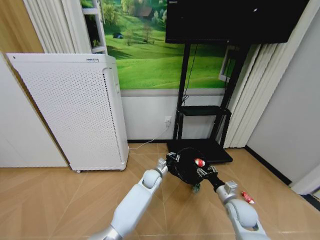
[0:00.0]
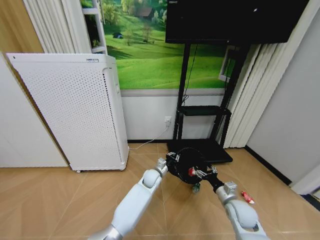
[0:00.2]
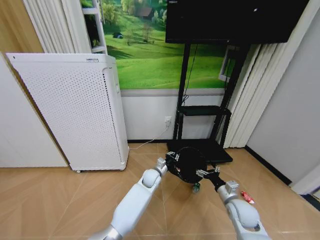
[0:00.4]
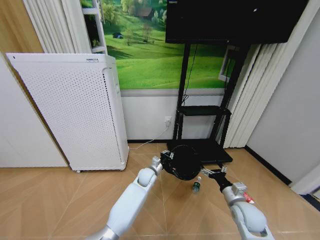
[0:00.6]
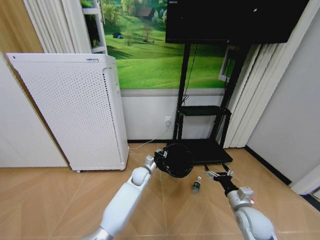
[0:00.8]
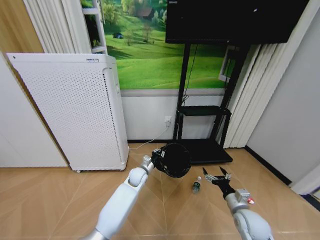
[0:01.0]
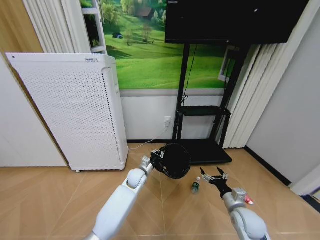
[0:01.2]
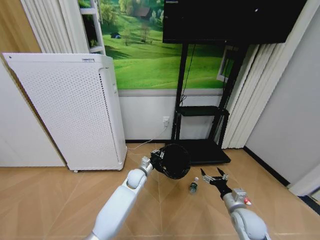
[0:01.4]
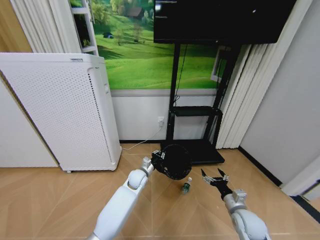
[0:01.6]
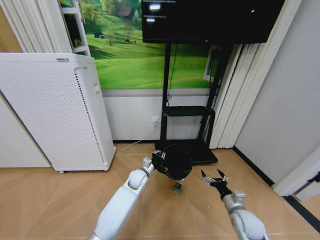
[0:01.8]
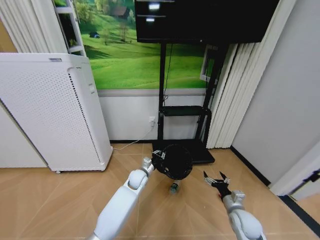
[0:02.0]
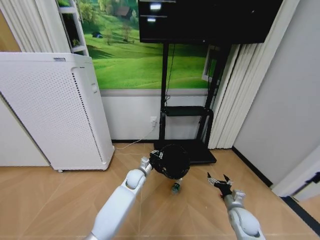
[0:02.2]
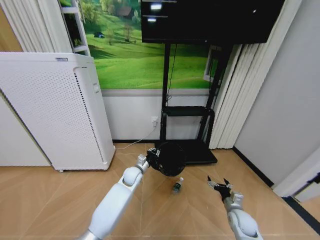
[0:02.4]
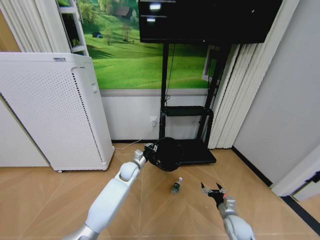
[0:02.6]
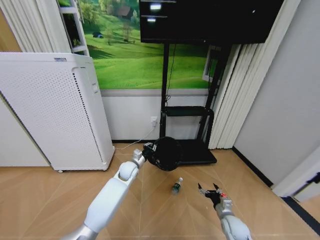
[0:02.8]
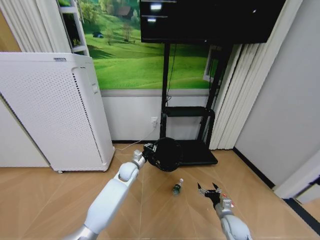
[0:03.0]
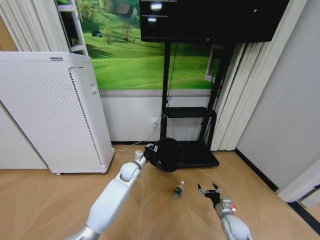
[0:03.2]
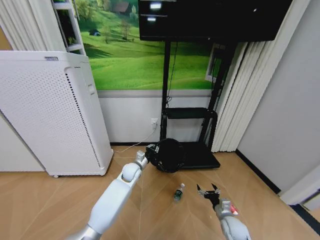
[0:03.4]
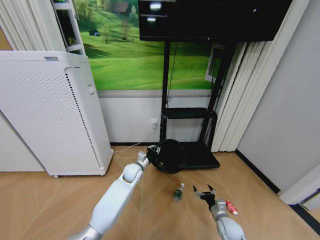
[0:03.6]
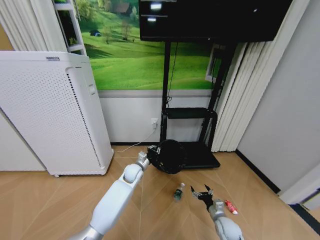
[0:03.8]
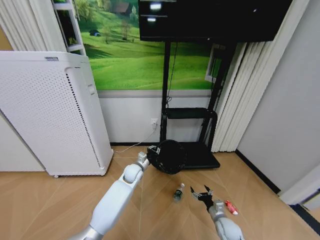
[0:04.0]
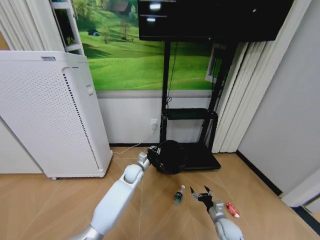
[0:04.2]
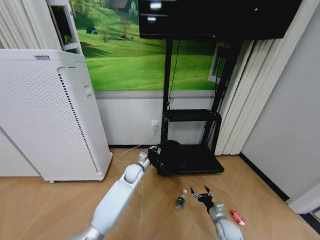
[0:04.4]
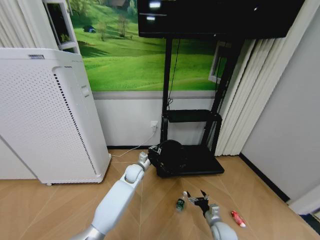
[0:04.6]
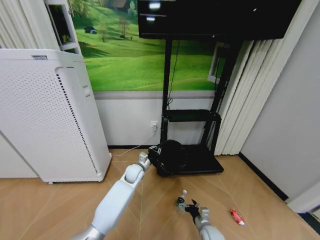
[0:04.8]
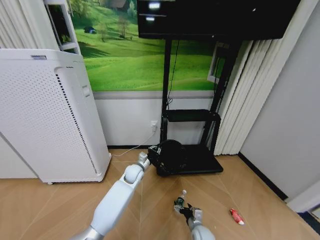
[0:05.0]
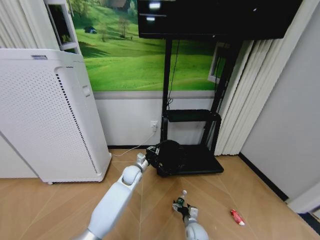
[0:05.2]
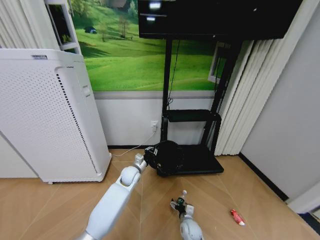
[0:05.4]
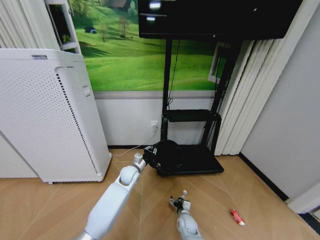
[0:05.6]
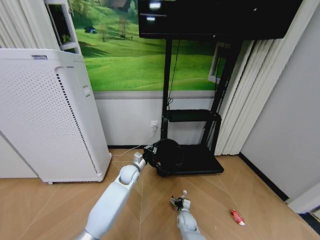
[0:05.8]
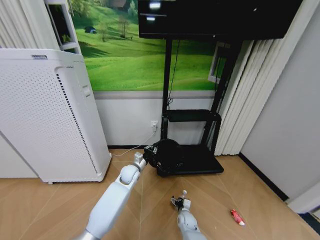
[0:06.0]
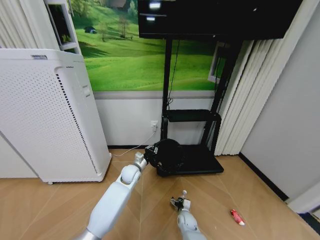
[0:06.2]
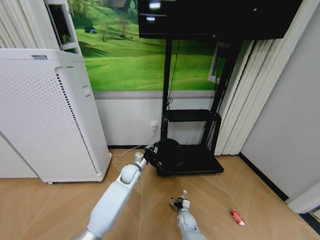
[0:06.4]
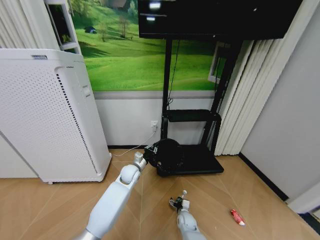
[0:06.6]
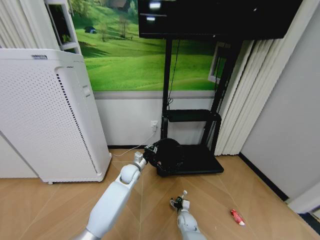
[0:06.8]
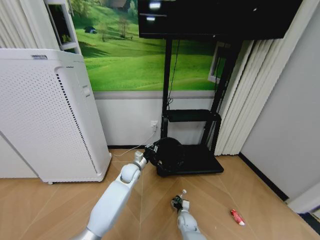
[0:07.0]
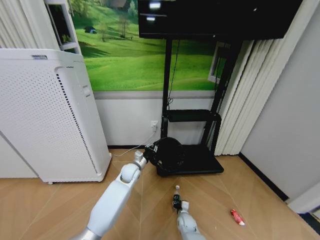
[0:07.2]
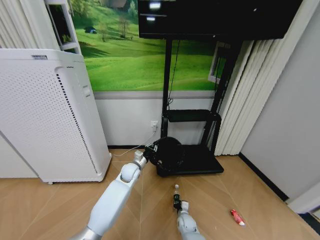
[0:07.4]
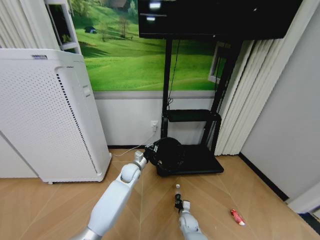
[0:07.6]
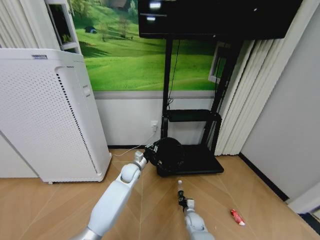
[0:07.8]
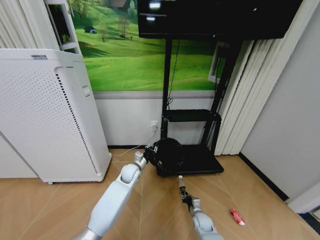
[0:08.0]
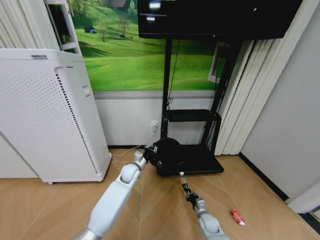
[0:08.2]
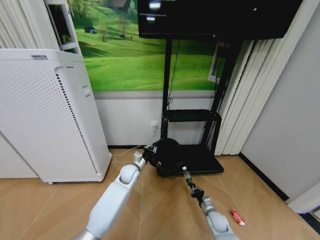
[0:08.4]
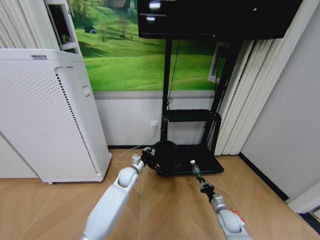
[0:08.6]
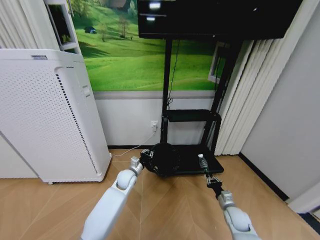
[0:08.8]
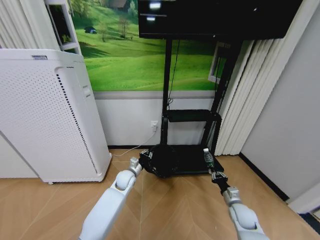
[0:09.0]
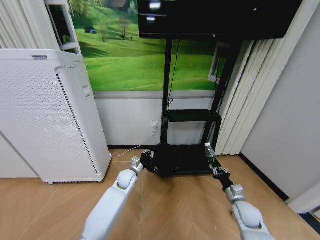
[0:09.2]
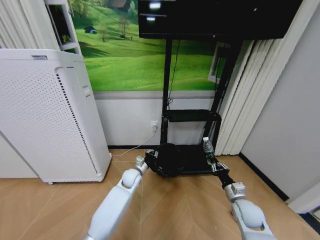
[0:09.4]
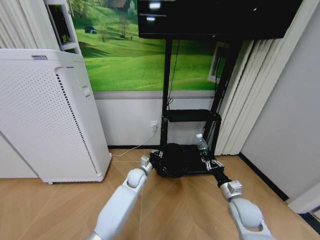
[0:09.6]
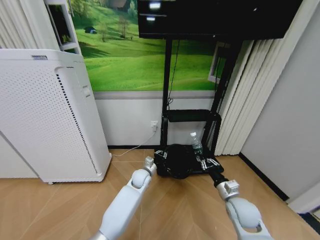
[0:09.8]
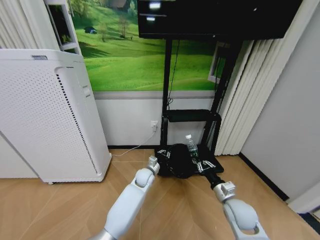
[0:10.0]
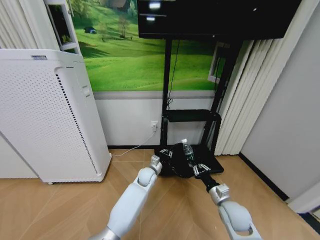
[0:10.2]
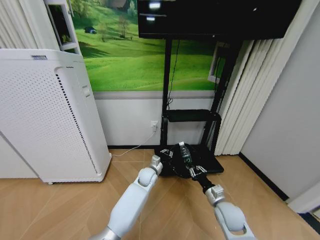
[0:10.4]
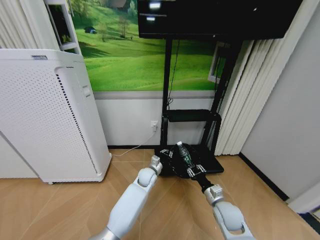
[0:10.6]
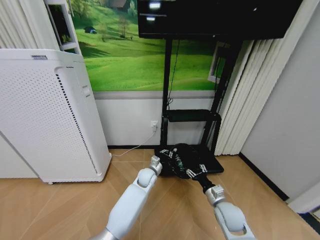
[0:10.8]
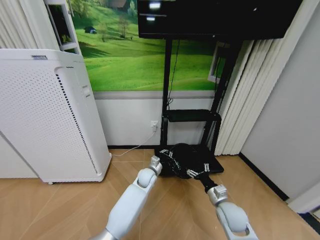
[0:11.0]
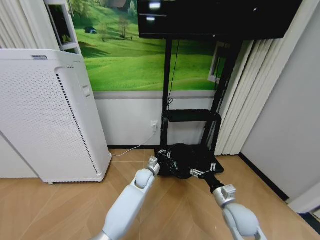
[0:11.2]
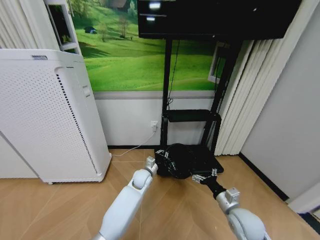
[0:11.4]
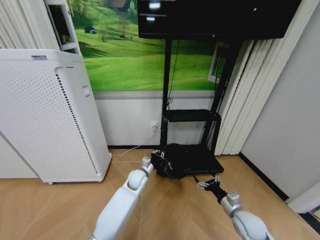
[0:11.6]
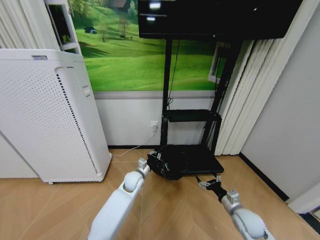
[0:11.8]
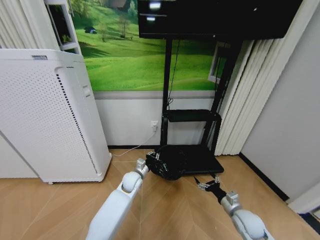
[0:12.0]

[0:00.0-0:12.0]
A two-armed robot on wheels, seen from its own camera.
Task of the whole recording: Pick up the trash bin and place the garbage on the floor into it.
0:00.0 to 0:01.6: The left gripper is displaced to the left by about 5 cm. The right gripper opens up.
0:01.6 to 0:03.0: The left gripper shifts by approximately 5 cm. Meanwhile the right gripper is displaced downward by approximately 10 cm.
0:04.4 to 0:06.0: The right gripper travels to the left and downward by approximately 20 cm.
0:06.0 to 0:07.6: The right gripper closes up.
0:07.6 to 0:09.0: The right gripper travels to the right and upward by approximately 30 cm.
0:09.0 to 0:10.4: The left gripper heads to the right, covering approximately 10 cm. The right gripper moves to the left and upward, some 10 cm.
0:10.4 to 0:12.0: The left gripper heads to the left, covering about 10 cm, while the right gripper travels to the right by approximately 10 cm, and opens up.

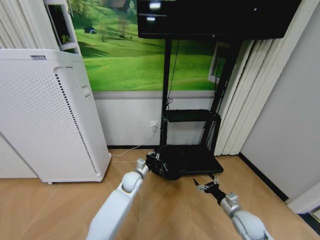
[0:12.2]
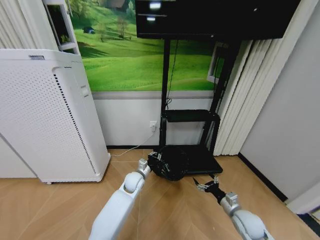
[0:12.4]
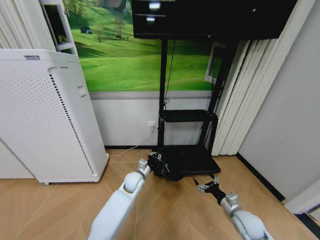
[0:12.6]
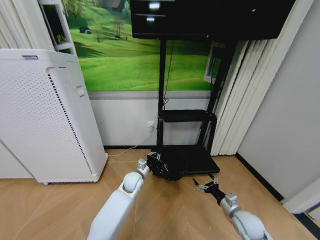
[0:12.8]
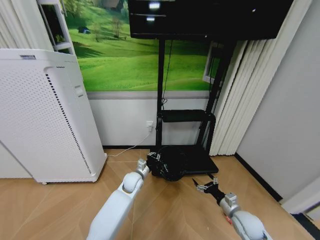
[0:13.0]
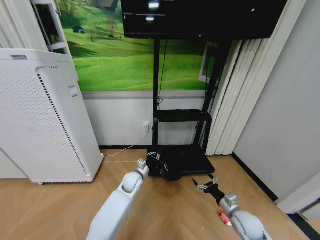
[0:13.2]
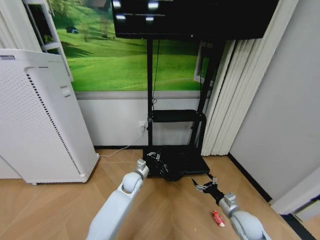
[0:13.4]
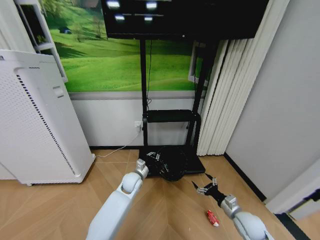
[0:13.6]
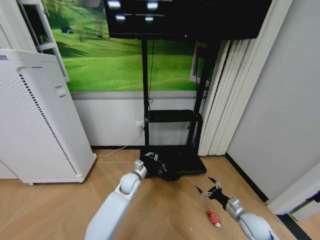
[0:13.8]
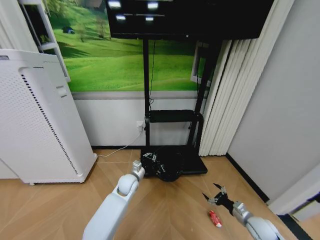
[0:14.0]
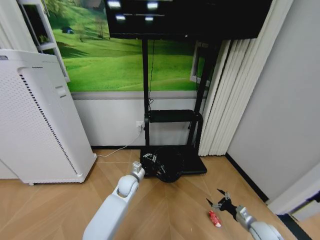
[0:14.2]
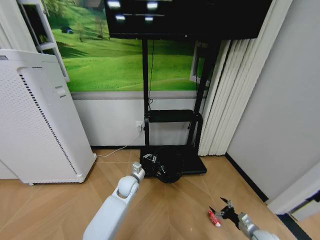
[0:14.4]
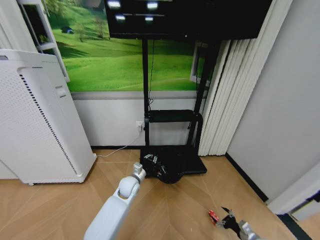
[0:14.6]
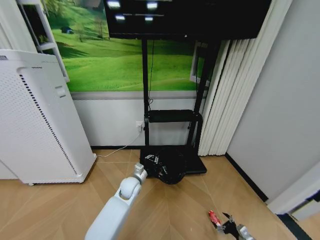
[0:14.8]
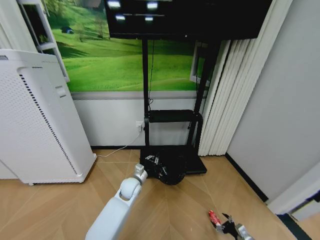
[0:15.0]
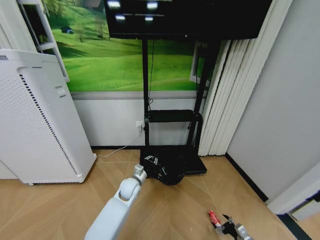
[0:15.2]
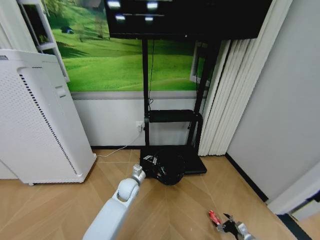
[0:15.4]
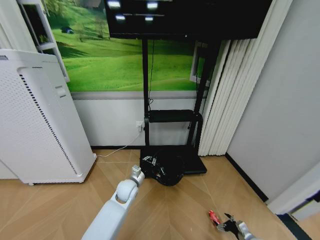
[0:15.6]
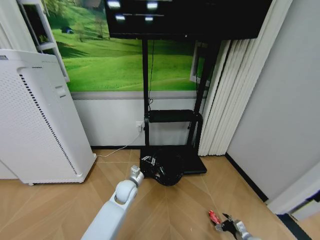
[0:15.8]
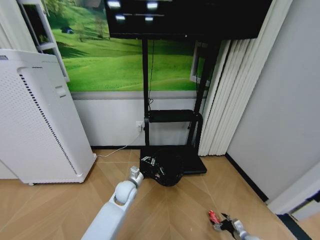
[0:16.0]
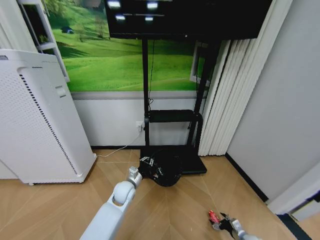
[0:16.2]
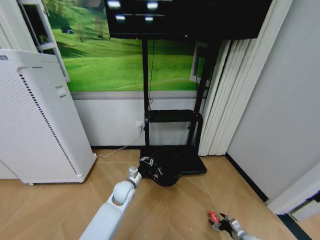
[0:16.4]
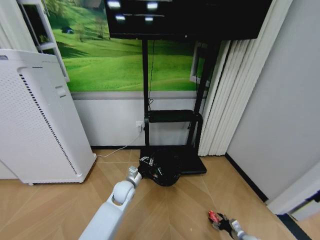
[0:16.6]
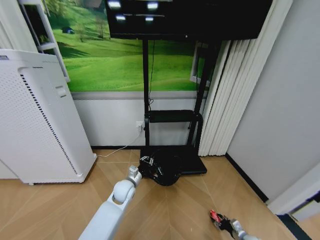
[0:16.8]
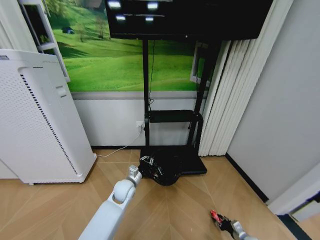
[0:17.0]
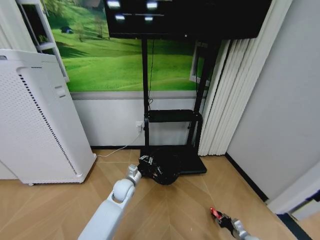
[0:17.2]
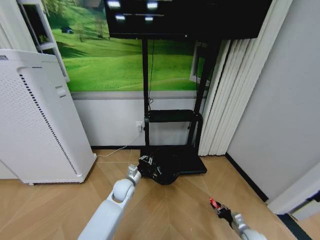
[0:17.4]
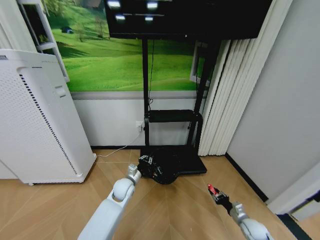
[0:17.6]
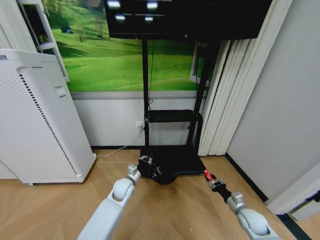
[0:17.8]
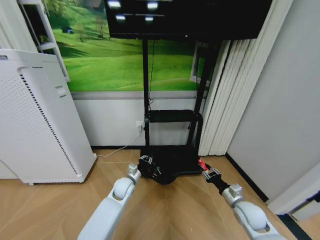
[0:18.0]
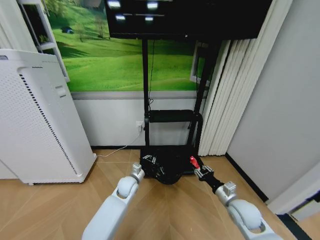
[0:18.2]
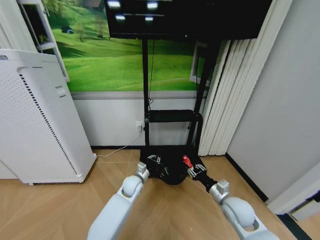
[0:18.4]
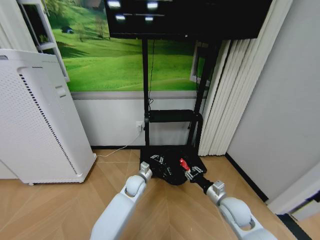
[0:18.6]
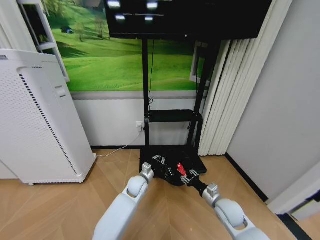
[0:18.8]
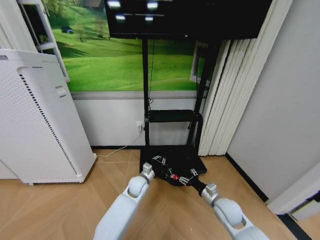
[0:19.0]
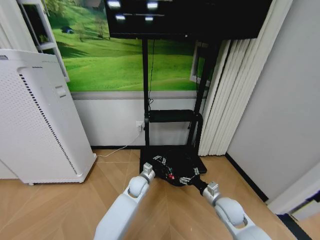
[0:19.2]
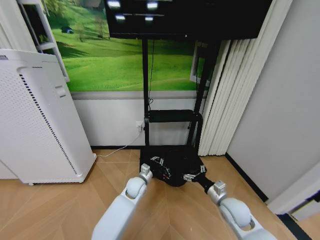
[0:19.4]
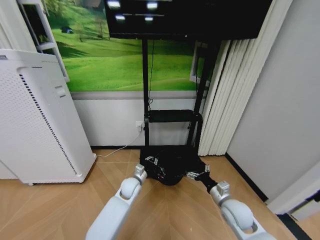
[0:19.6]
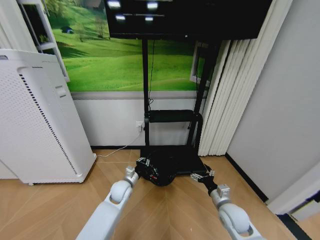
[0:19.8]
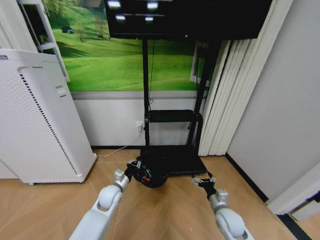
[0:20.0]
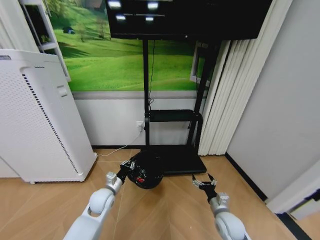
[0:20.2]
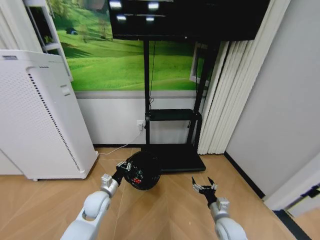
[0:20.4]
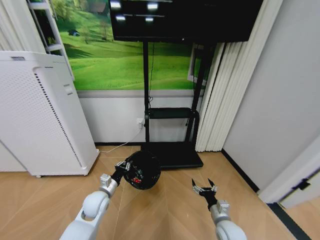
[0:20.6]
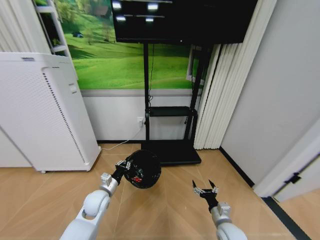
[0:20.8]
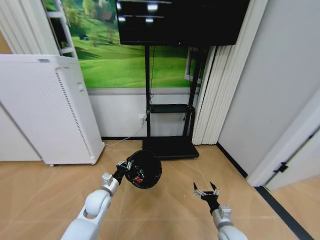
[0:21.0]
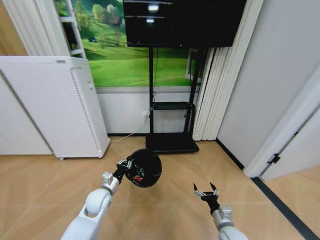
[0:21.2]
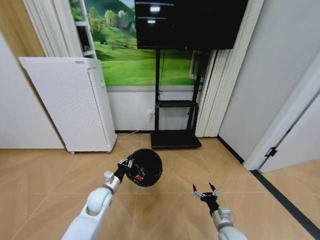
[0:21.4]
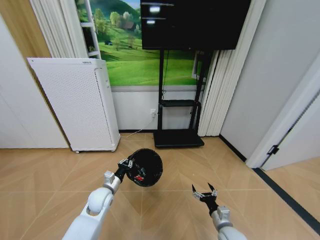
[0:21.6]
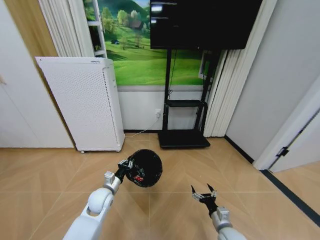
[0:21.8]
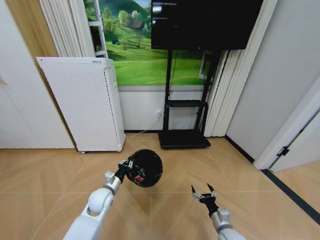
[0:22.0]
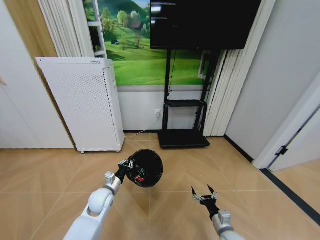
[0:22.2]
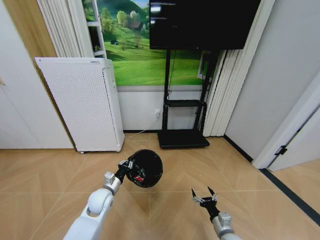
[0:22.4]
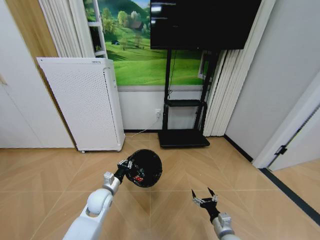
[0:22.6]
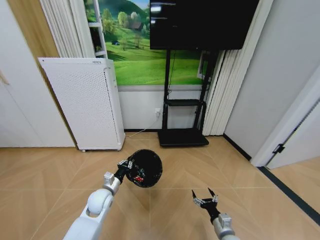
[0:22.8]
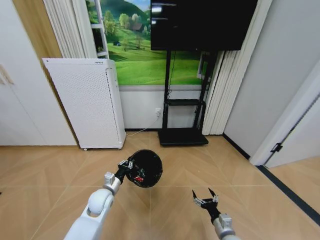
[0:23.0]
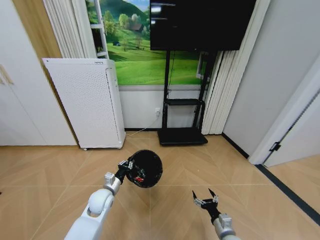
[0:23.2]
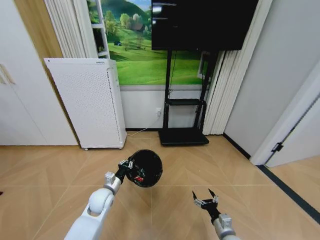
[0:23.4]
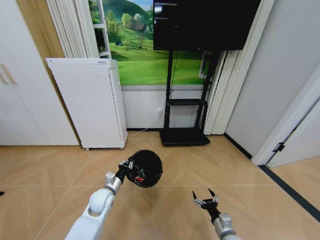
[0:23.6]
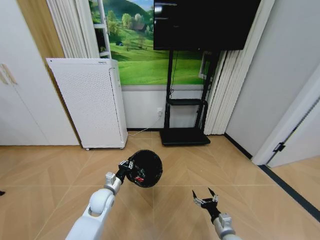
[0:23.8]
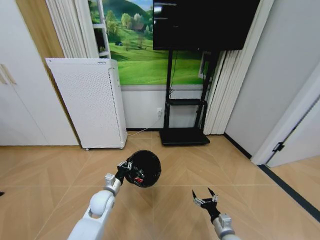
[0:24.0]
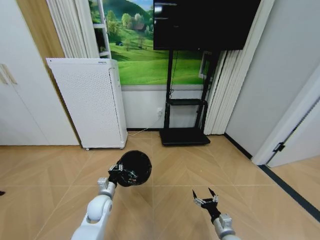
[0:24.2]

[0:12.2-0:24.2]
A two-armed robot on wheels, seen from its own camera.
Task of the whole recording: Pick up the trash bin and place the garbage on the floor into it.
0:13.8 to 0:15.2: The right gripper heads downward, to the right and backward, covering some 20 cm.
0:15.2 to 0:16.6: The grippers stay close to where they were, moving slightly.
0:16.6 to 0:18.2: The right gripper goes roughly 30 cm upward and to the left, and closes up.
0:18.2 to 0:19.8: The right gripper opens up.
0:19.8 to 0:21.2: The right gripper shifts about 10 cm downward and backward. The left gripper travels to the left by some 10 cm.
0:22.6 to 0:24.2: The grippers stay close to where they were, moving slightly.
